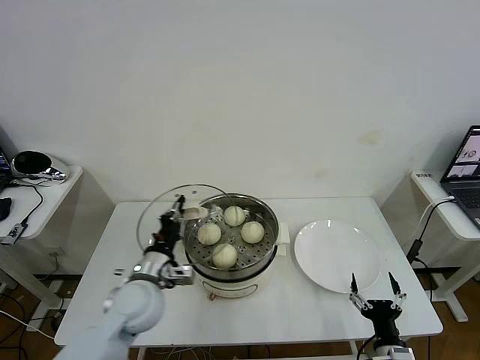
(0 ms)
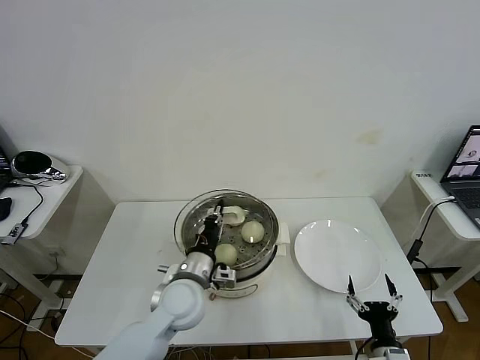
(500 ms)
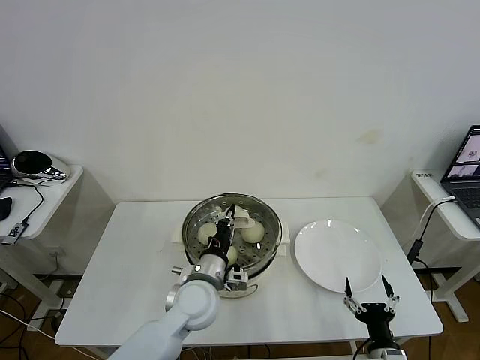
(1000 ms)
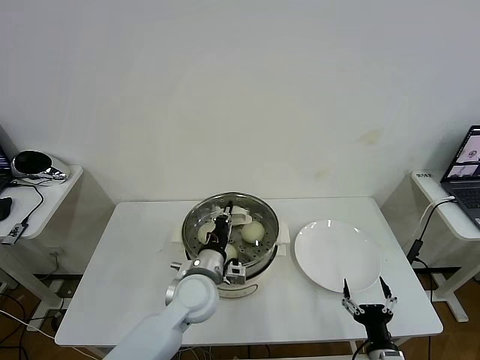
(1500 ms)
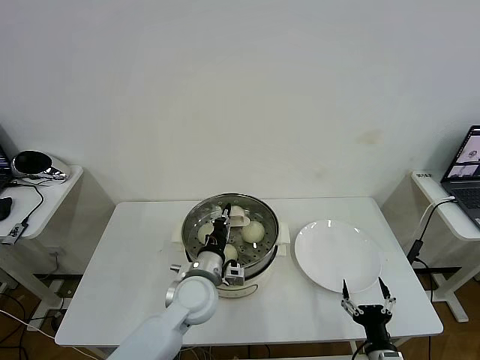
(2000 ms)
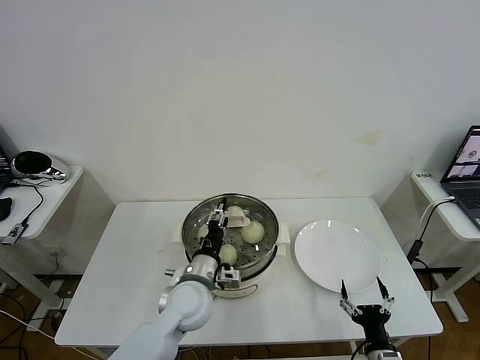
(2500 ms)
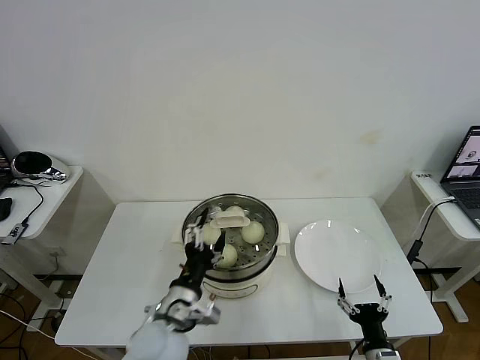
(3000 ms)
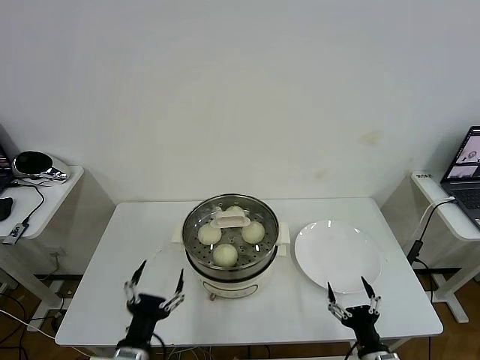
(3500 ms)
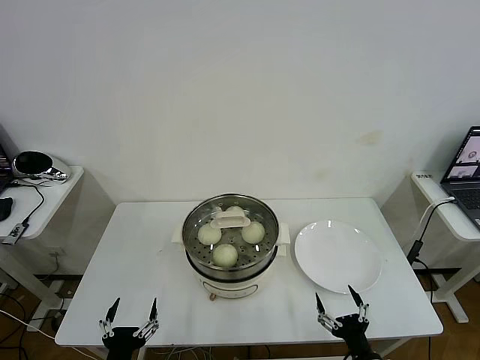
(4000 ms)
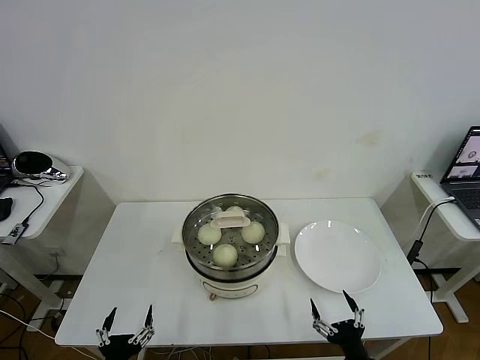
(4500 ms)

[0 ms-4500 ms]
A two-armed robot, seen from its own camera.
Task of the whole recording: take steamed baozi put them in steamer then cover it.
Step, 0 ms to 3000 ms: Place the pot lid on the steamer with left gripper.
0 ms to 2000 ms: The left gripper heads to the right, covering about 10 cm.
2000 ms to 4500 ms: The left gripper goes approximately 30 cm backward and to the left, and opens up.
